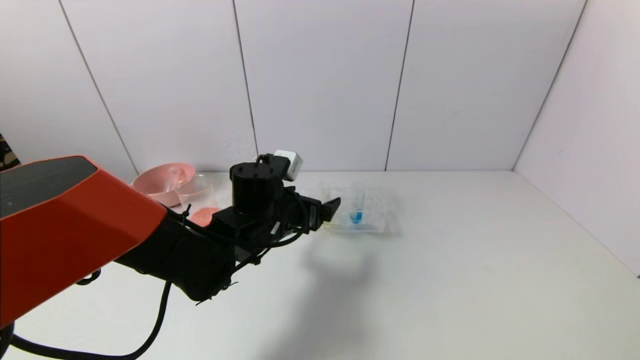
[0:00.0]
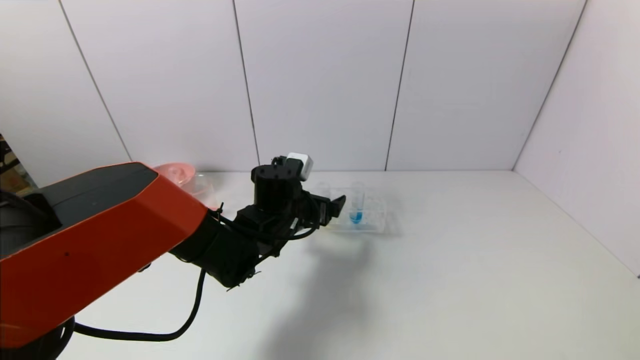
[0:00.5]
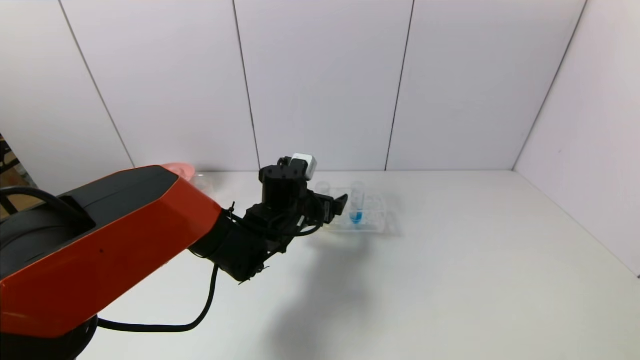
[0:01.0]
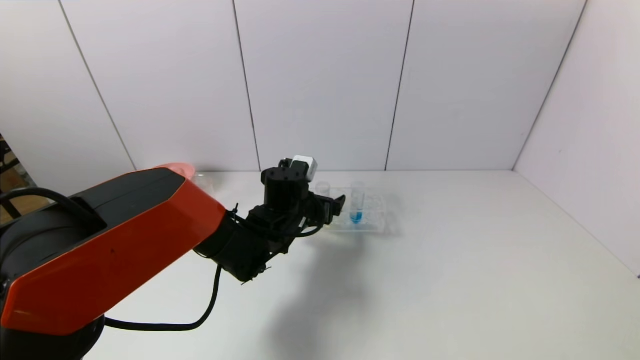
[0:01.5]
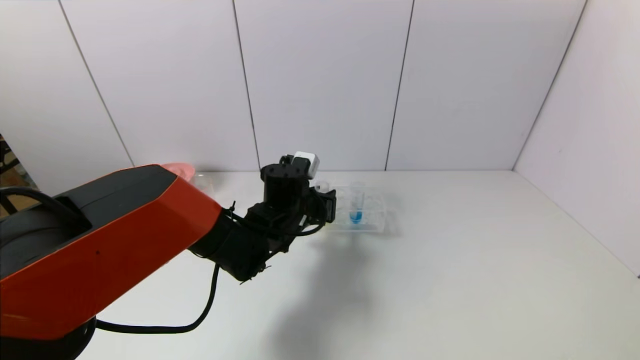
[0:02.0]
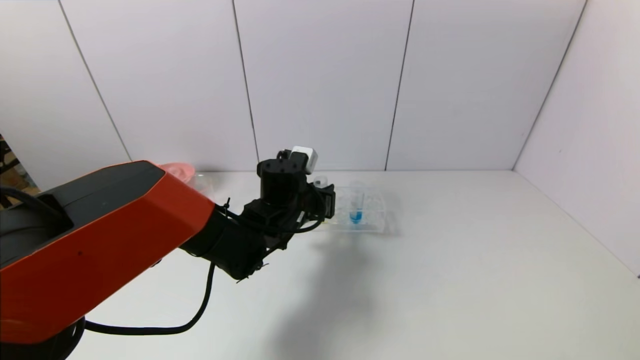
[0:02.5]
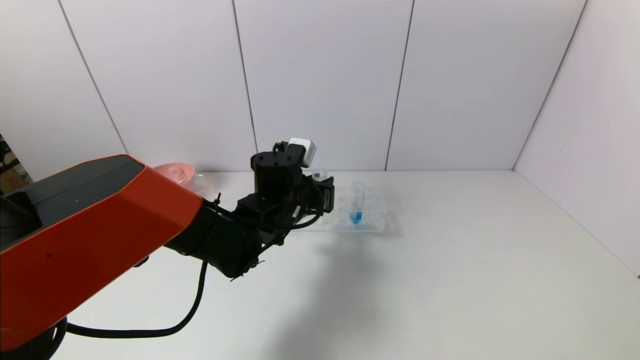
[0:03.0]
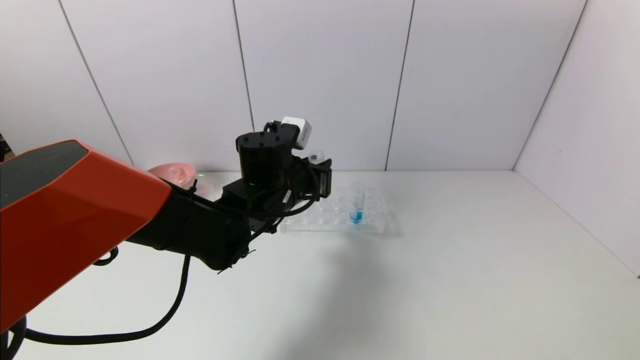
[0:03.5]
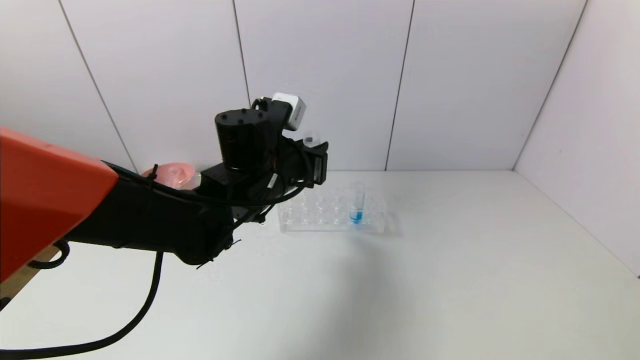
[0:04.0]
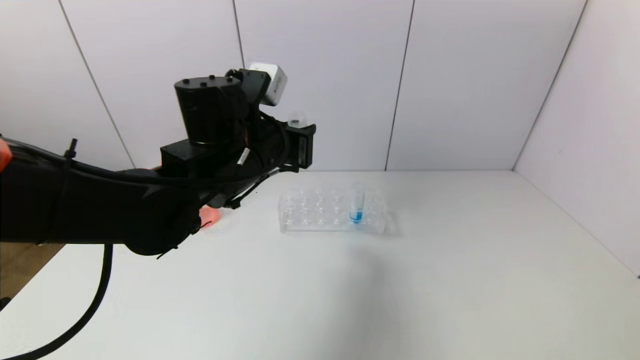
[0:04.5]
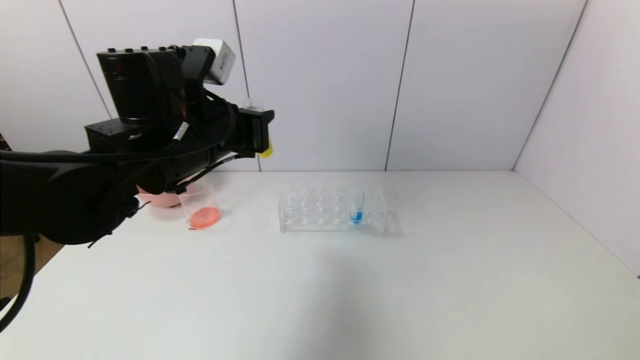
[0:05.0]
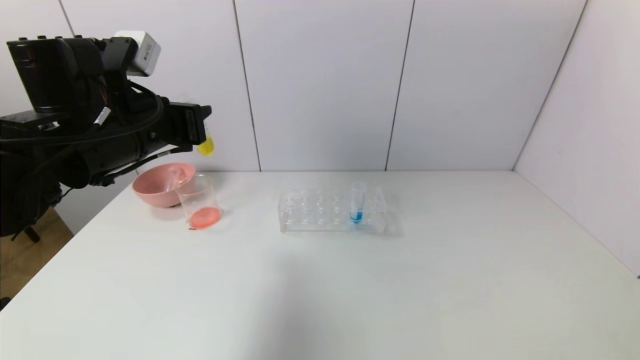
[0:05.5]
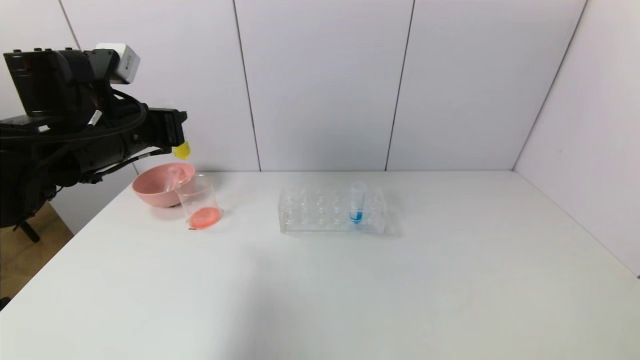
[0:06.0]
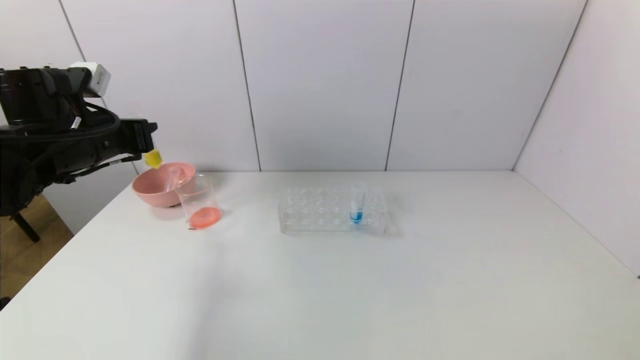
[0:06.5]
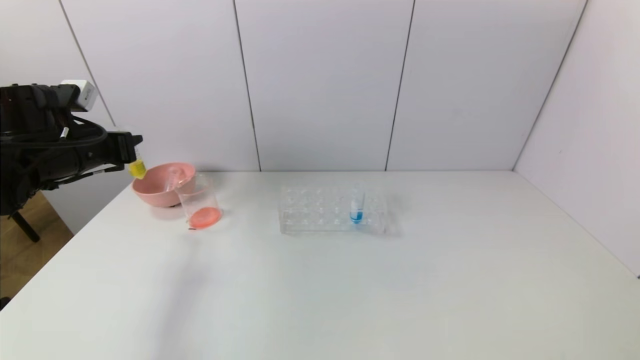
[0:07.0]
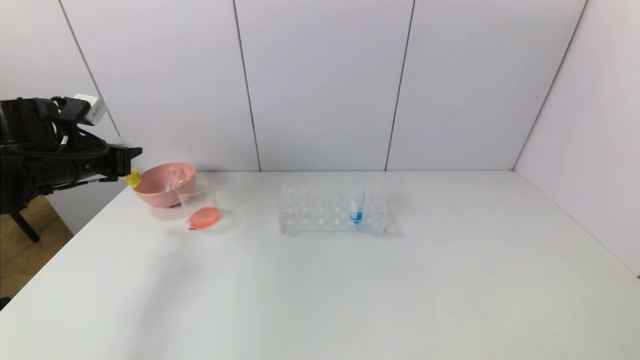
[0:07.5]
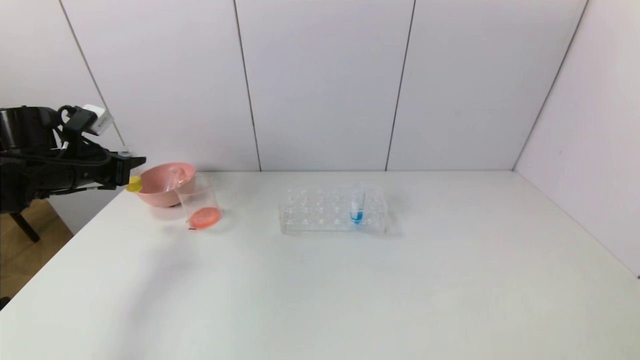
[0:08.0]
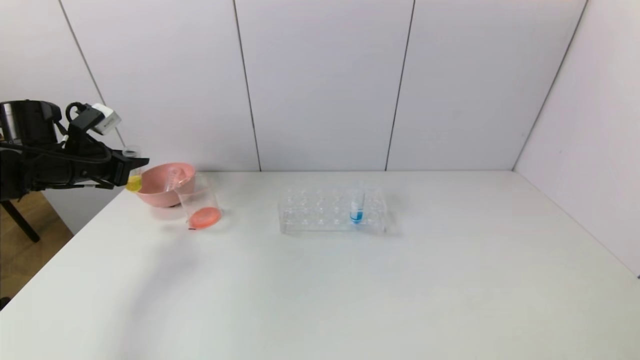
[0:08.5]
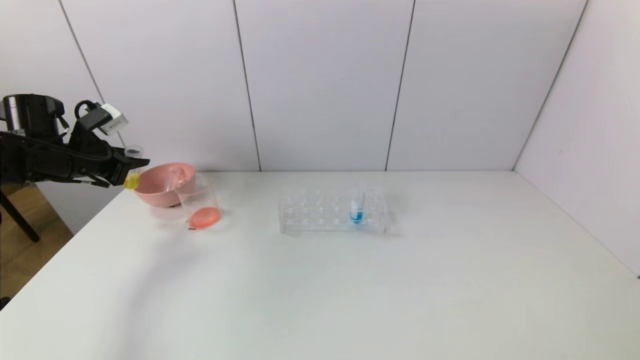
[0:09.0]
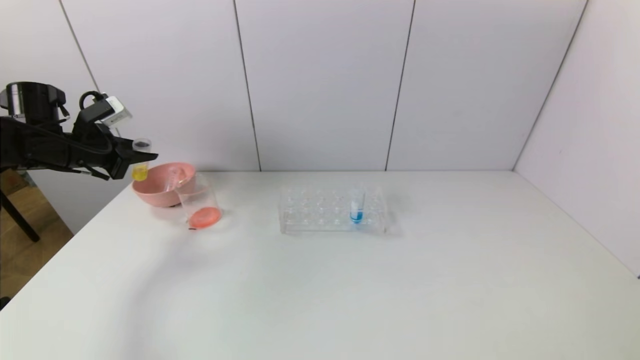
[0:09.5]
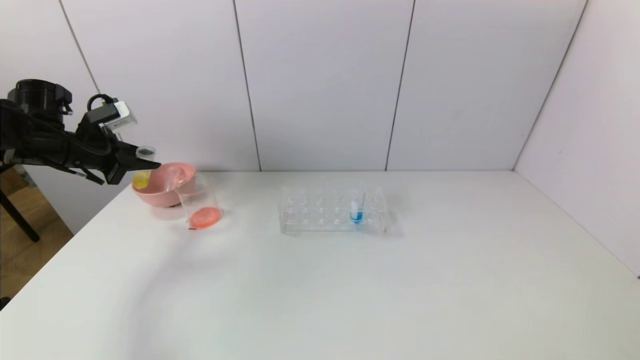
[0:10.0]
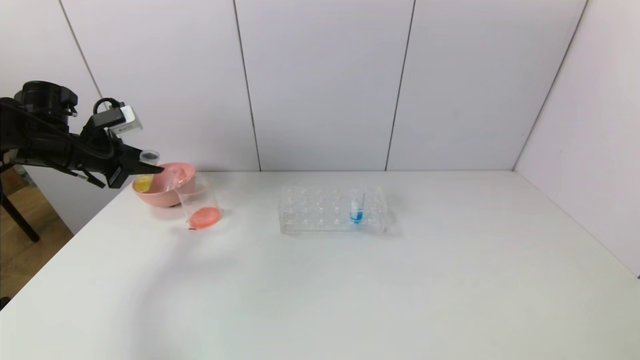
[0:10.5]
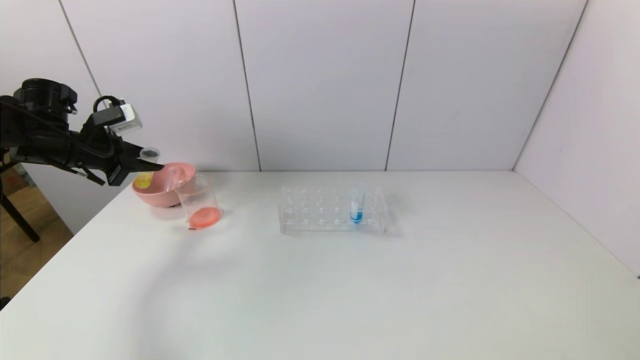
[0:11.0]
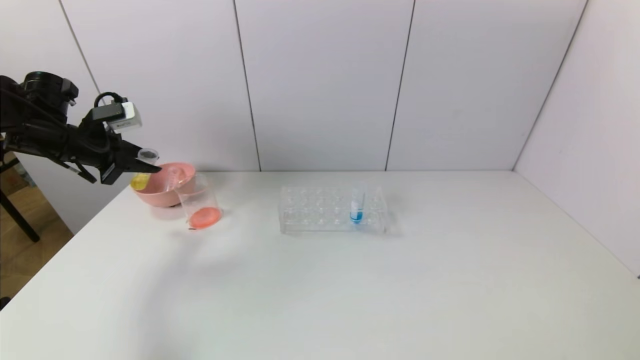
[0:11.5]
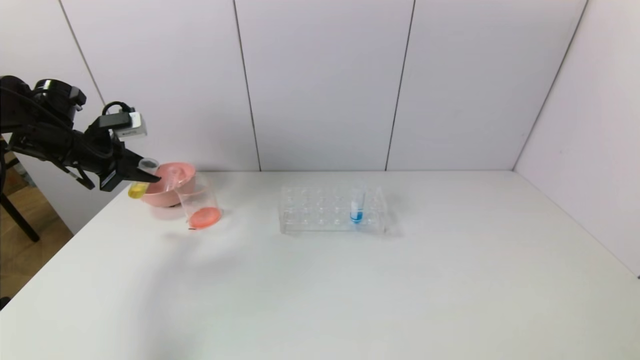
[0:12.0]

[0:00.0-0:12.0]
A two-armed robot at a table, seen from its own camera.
Task of the whole recording: pick up the test tube with yellow pigment and the test tube with red pigment by grippers and pour them into the beaker.
Step, 0:00.0 to 0:02.0: Grasp the yellow reagent with the left gripper.
0:00.0 to 0:02.0: The left gripper shifts by approximately 5 cm, and closes.
0:02.0 to 0:04.0: The left gripper heads upward, covering approximately 10 cm.
0:04.0 to 0:06.0: The left gripper is displaced to the left by approximately 20 cm.
0:06.0 to 0:08.0: The left gripper shifts approximately 15 cm to the left, downward and forward.
0:10.0 to 0:12.0: The grippers move only a little.

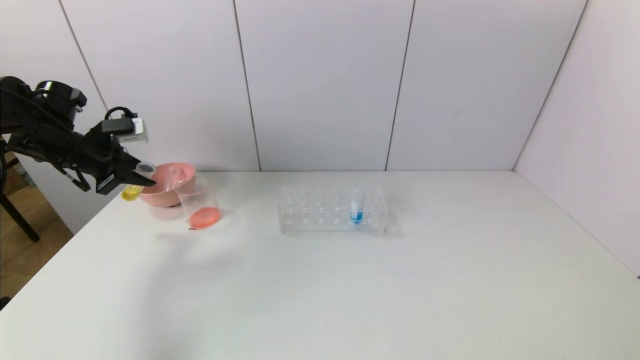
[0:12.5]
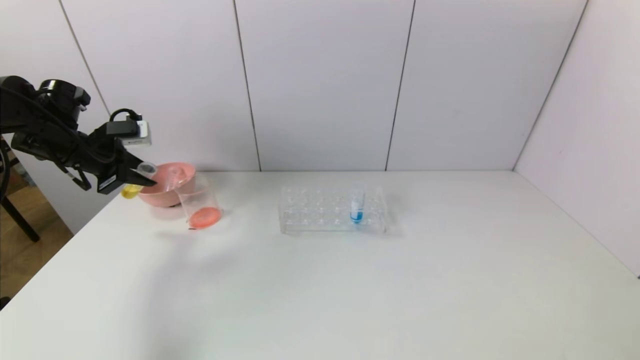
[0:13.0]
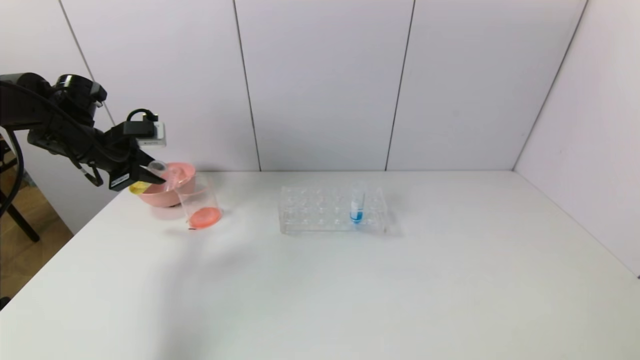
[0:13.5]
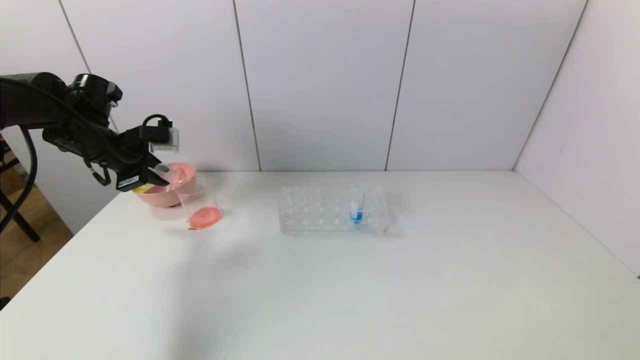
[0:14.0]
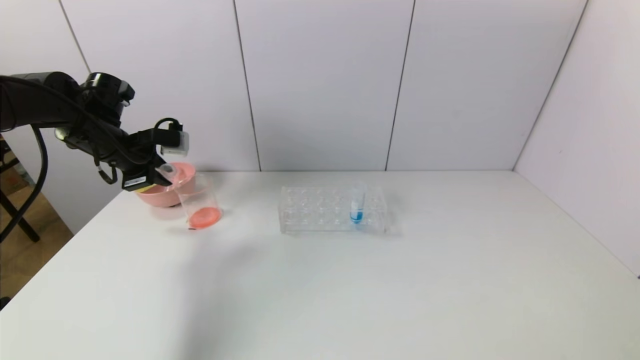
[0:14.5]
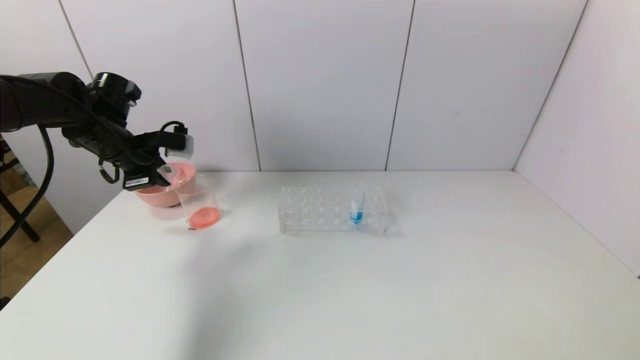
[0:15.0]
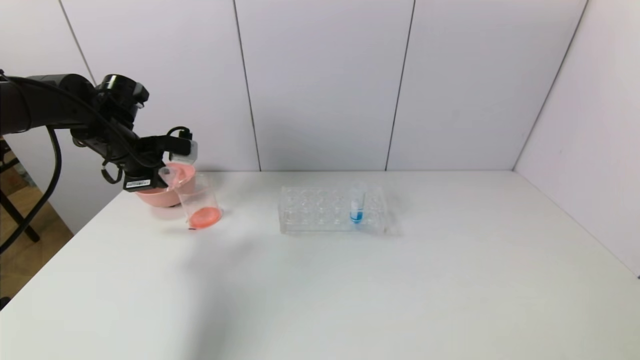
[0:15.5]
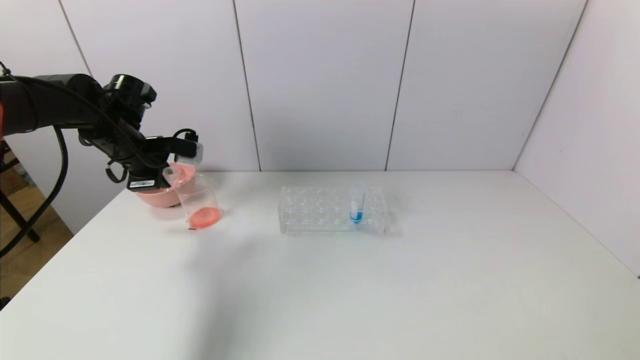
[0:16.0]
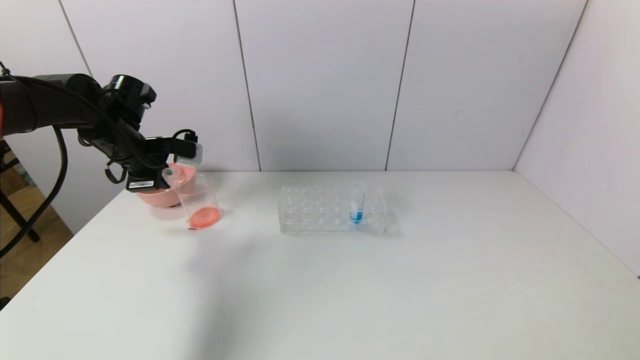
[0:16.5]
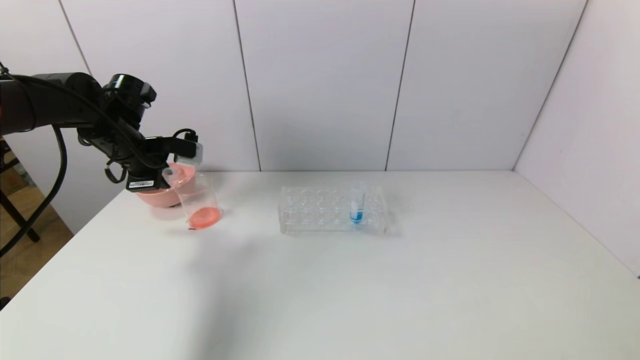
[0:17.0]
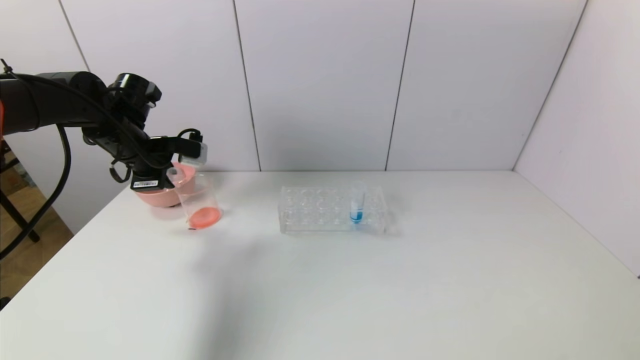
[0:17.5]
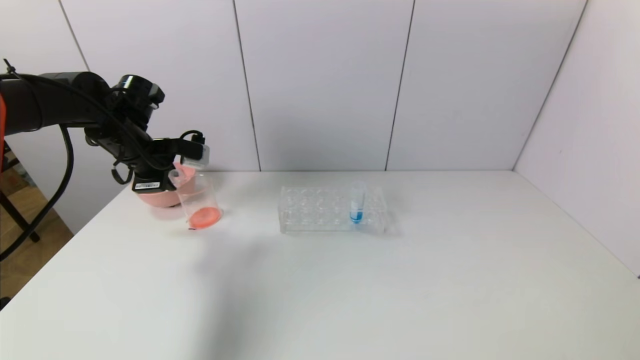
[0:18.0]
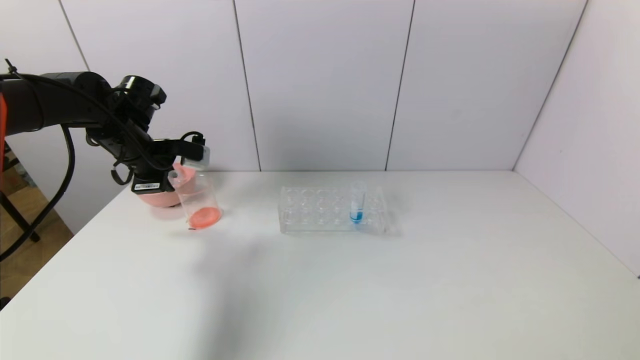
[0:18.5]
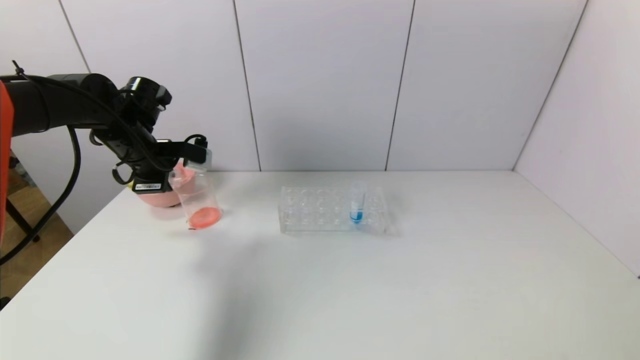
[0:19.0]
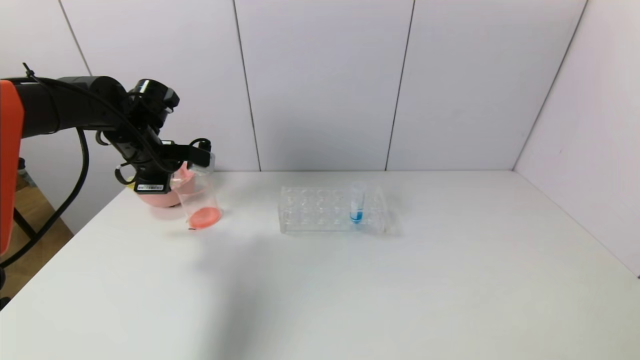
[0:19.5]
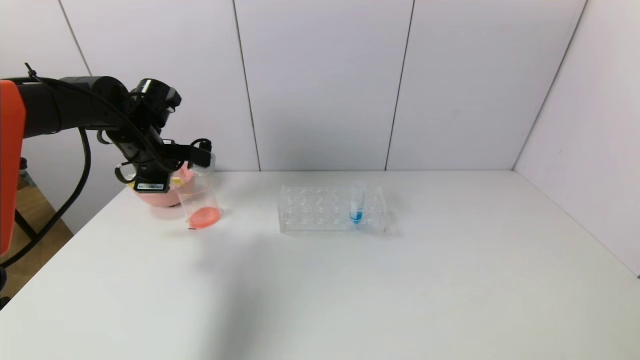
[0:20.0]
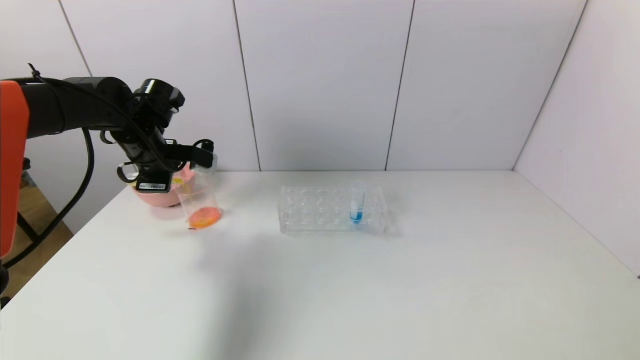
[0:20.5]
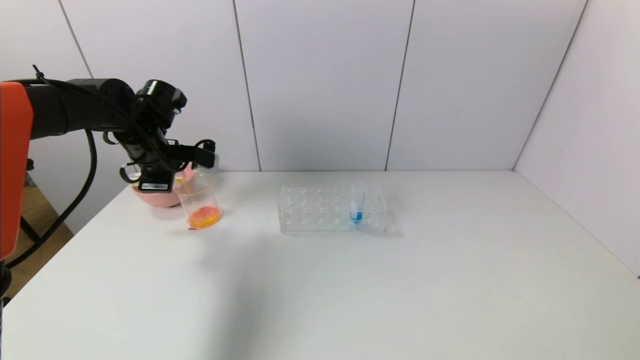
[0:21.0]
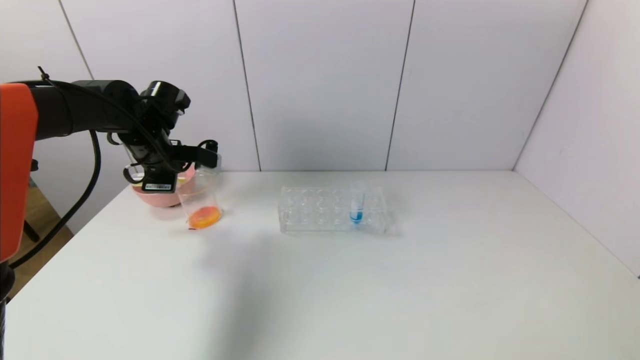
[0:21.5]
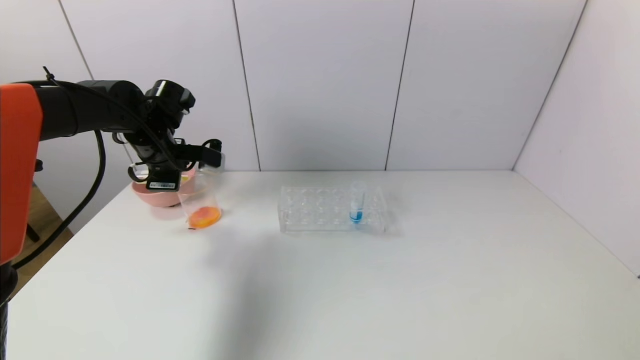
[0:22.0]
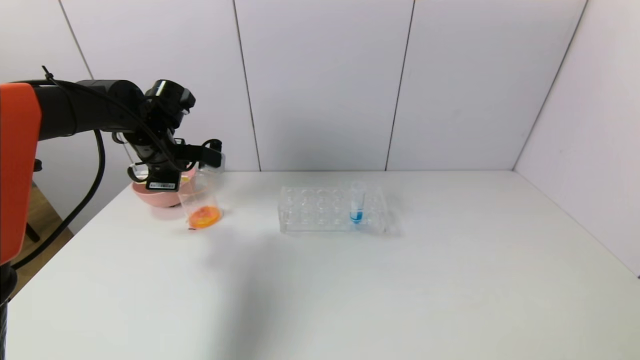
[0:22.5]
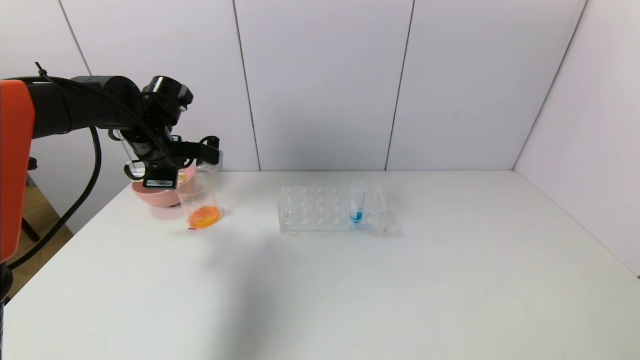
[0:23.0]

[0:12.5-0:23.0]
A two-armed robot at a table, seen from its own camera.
Task of the whole recording: pick up the test tube with yellow pigment and the test tube with red pigment by grippers and pour them into the beaker.
0:12.5 to 0:14.5: The left gripper is displaced to the right by some 5 cm.
0:14.5 to 0:19.0: There are only small adjustments of the grippers.
0:19.0 to 0:21.0: The grippers make only small movements.
0:21.0 to 0:23.0: The two grippers keep their place.
